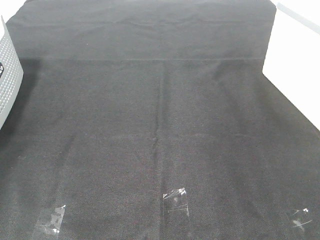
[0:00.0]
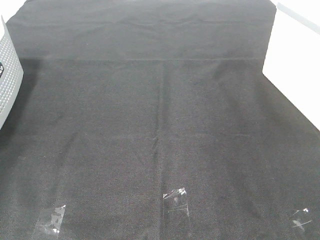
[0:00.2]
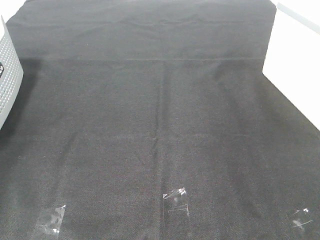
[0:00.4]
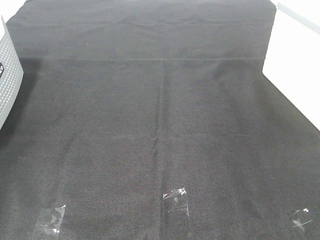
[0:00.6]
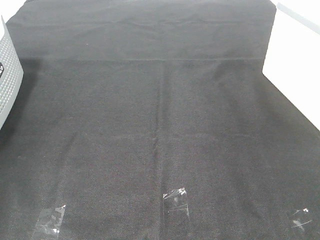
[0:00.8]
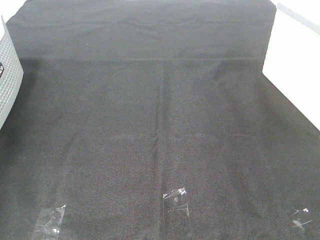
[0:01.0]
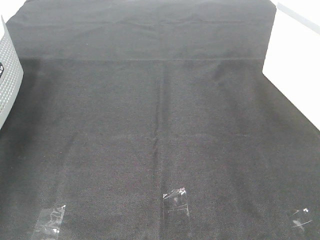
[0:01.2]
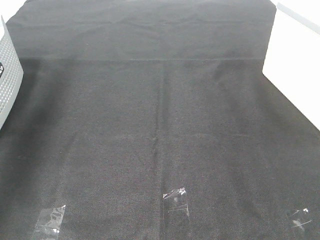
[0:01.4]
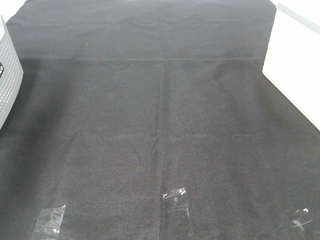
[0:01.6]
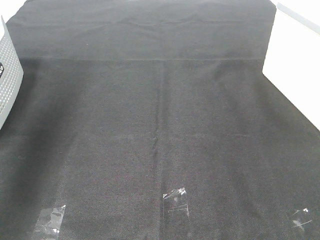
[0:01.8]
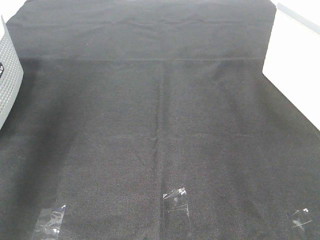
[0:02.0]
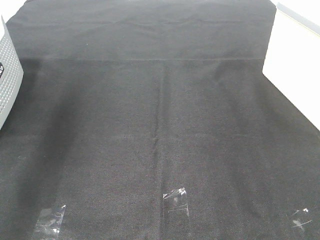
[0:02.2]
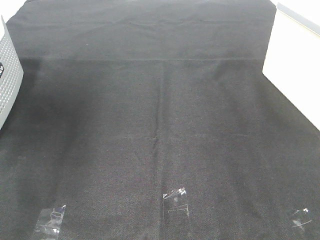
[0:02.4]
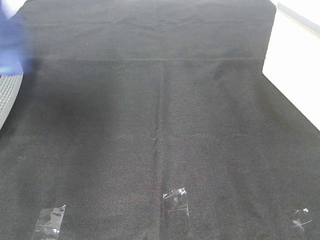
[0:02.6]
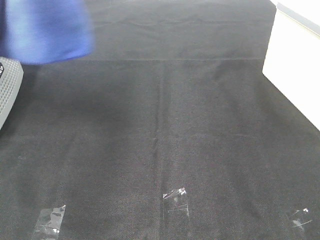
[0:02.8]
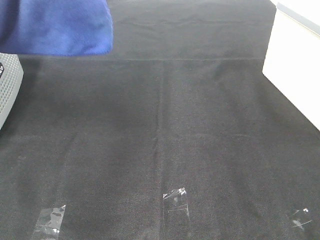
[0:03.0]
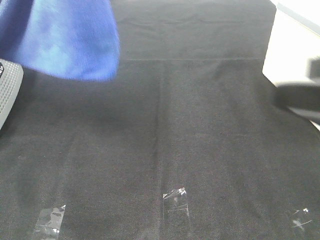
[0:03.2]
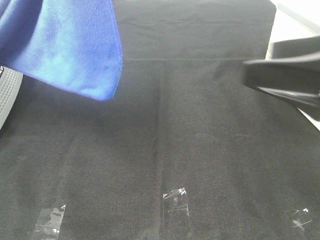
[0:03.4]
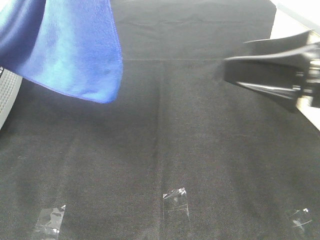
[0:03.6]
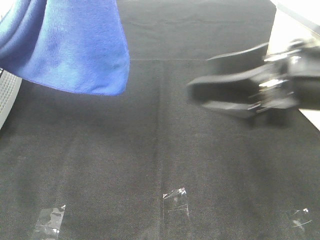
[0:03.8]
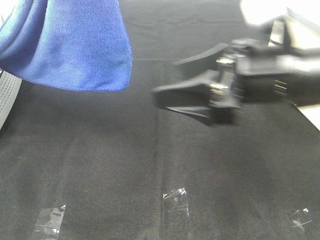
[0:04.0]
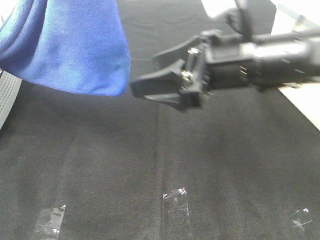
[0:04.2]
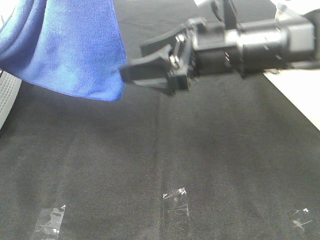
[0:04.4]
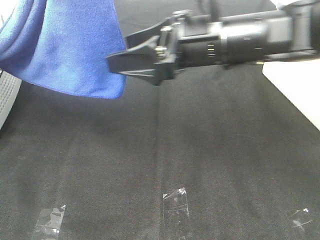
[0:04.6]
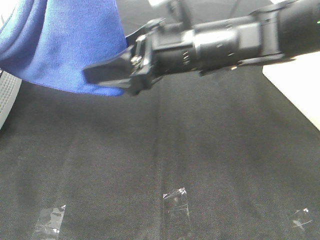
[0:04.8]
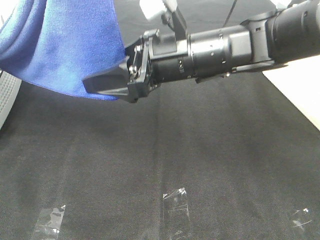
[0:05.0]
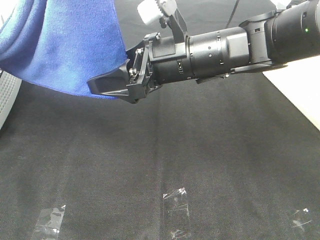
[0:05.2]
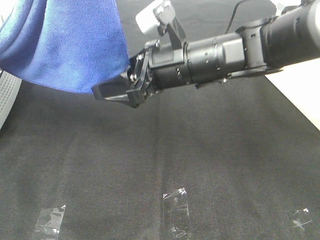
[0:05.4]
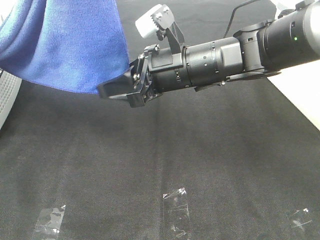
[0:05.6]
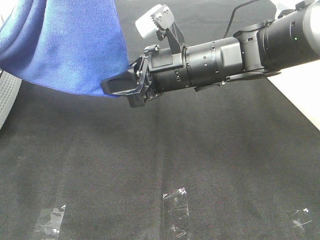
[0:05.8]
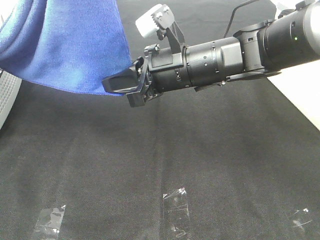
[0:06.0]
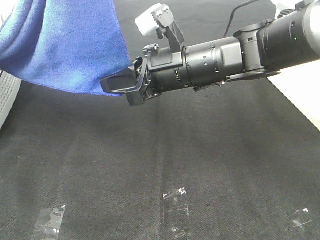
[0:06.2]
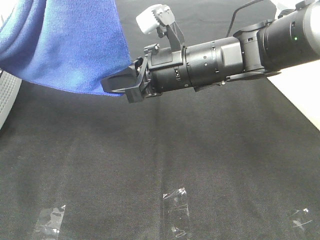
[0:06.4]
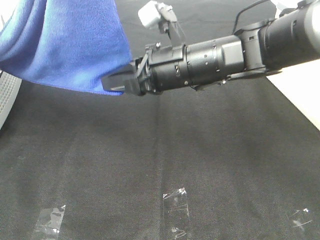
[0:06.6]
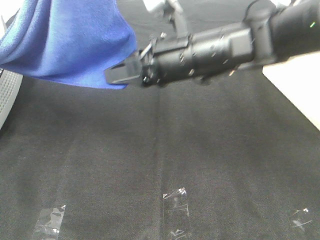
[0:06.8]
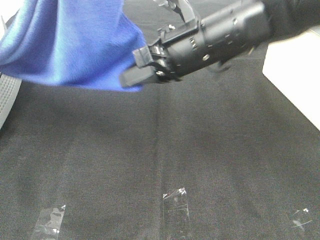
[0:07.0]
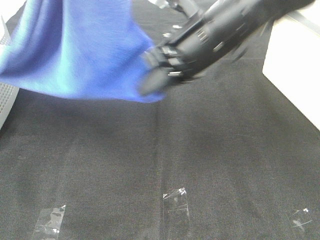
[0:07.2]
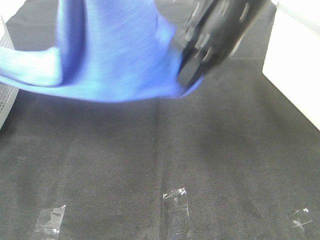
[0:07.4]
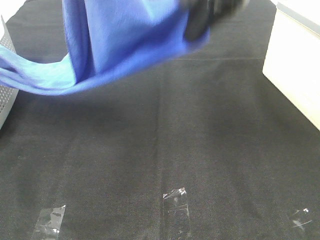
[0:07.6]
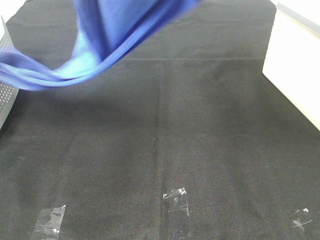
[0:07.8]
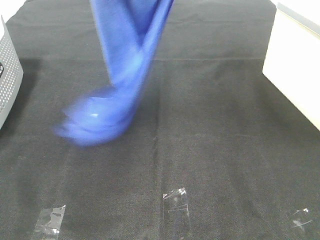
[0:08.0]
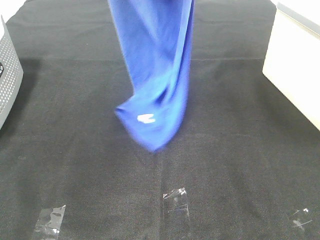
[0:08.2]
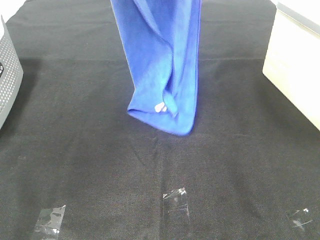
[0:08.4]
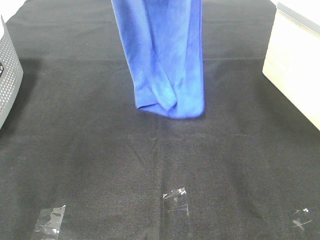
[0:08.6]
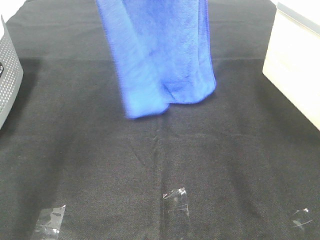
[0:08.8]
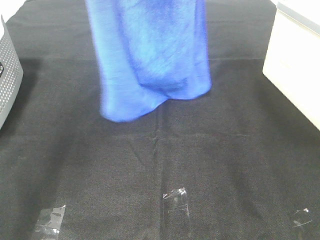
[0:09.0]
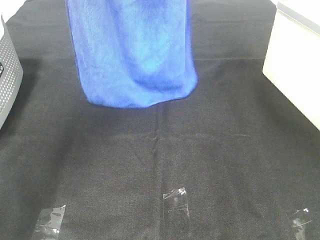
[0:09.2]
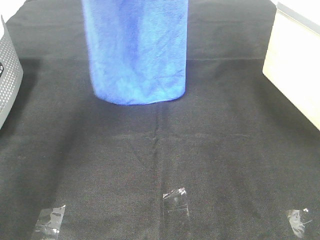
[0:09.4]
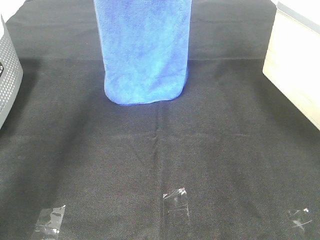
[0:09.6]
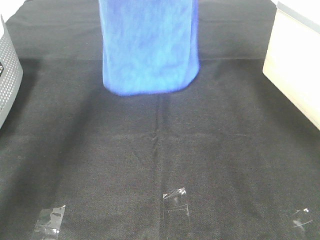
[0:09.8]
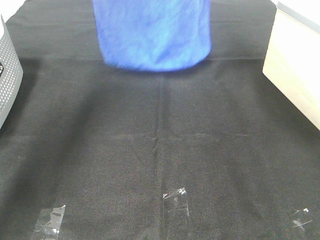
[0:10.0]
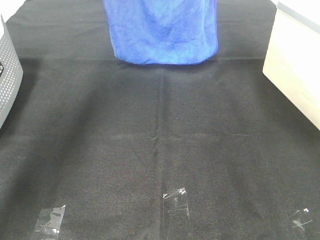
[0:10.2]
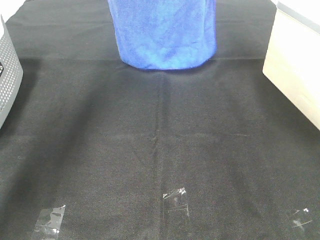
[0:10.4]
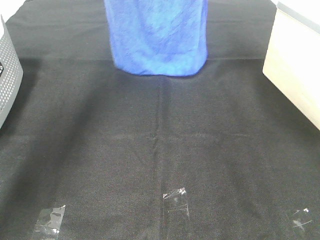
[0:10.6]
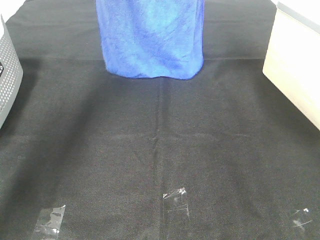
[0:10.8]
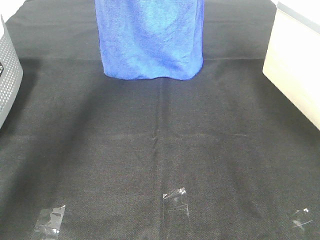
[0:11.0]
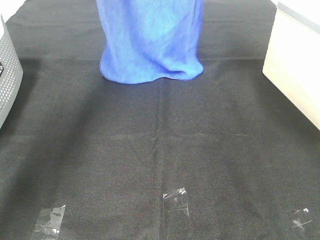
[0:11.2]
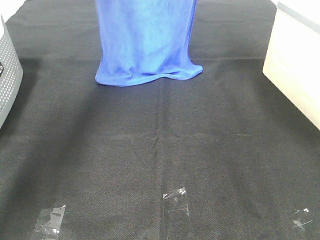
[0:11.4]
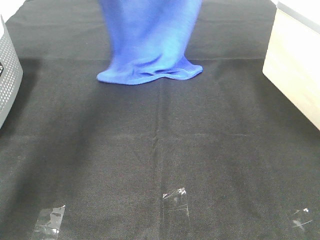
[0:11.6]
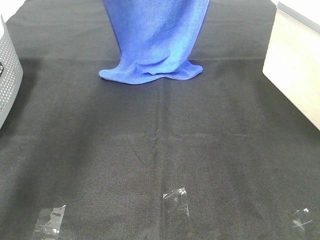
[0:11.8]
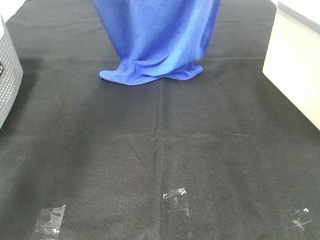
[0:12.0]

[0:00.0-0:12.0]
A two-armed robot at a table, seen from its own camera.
Task of the whole recording: Remove the towel and place it.
Step, 0:02.2 to 0:06.2: Right hand: grab a corner of the blue towel and straighten it.
0:00.0 to 0:01.6: The left gripper goes roughly 30 cm upward and to the right.
0:01.6 to 0:03.0: The left gripper moves to the right and backward, approximately 20 cm. The right gripper travels forward by roughly 10 cm.
0:03.0 to 0:04.4: The right gripper goes about 25 cm forward and to the left.
0:04.4 to 0:06.0: The right gripper moves roughly 5 cm, and closes.
0:06.0 to 0:07.6: The right gripper travels upward by roughly 20 cm.
0:07.6 to 0:09.0: The left gripper travels forward by approximately 15 cm; the right gripper heads upward and forward, covering roughly 15 cm.
0:09.0 to 0:10.4: Both grippers move forward, roughly 10 cm.
0:10.4 to 0:12.0: The two grippers go approximately 10 cm backward.

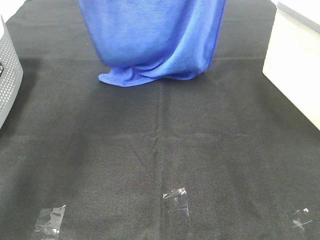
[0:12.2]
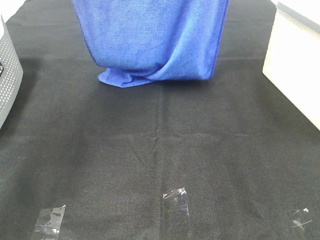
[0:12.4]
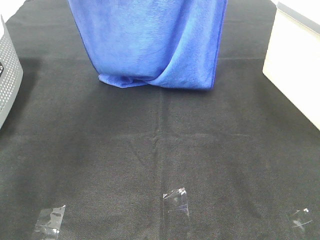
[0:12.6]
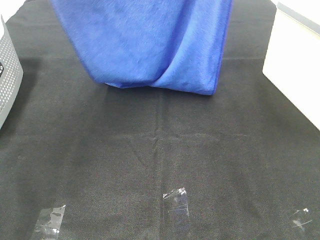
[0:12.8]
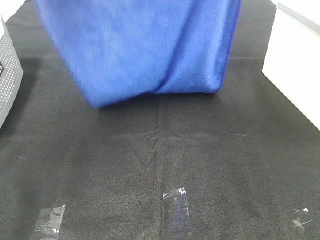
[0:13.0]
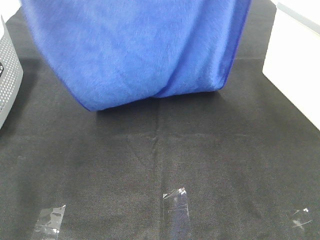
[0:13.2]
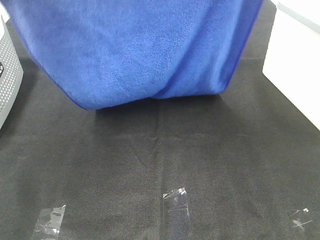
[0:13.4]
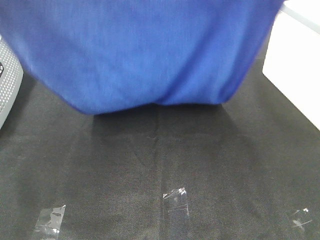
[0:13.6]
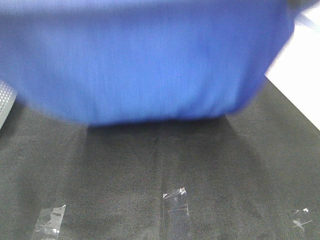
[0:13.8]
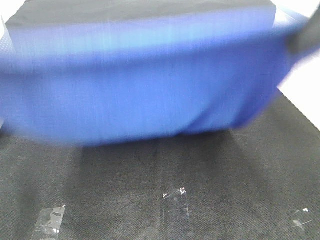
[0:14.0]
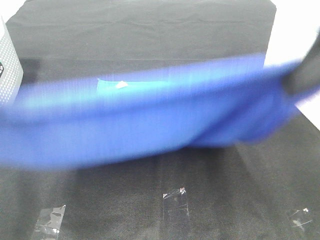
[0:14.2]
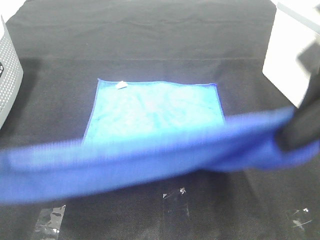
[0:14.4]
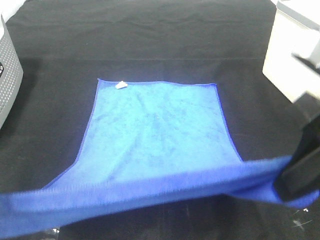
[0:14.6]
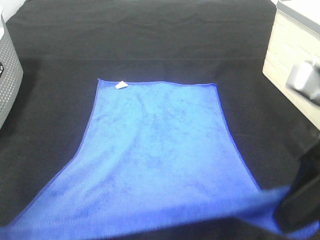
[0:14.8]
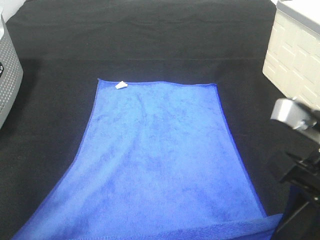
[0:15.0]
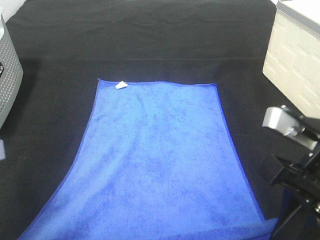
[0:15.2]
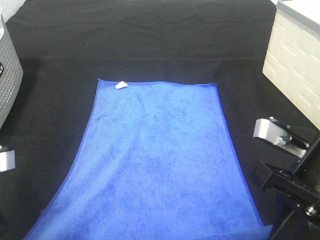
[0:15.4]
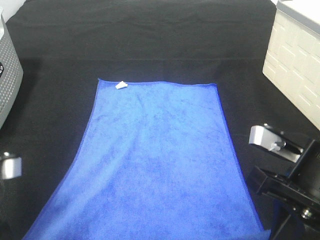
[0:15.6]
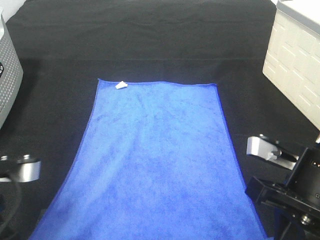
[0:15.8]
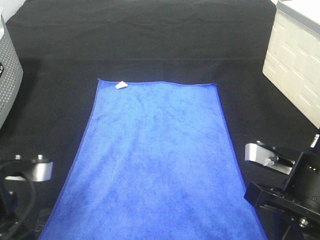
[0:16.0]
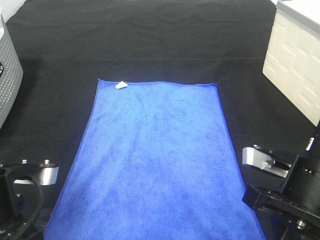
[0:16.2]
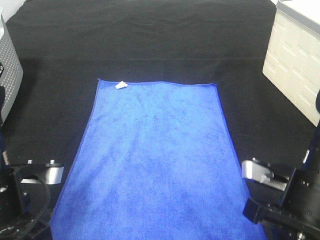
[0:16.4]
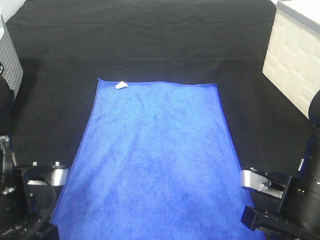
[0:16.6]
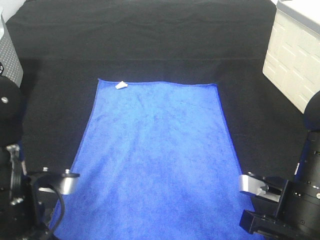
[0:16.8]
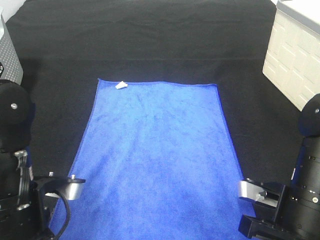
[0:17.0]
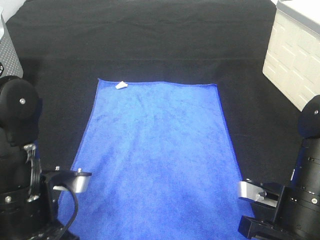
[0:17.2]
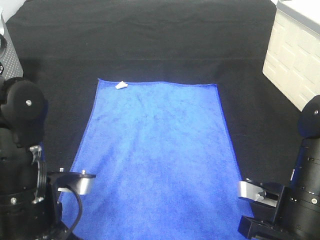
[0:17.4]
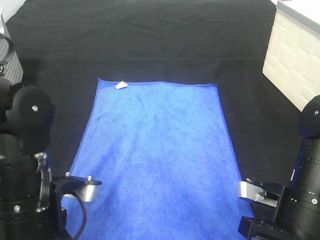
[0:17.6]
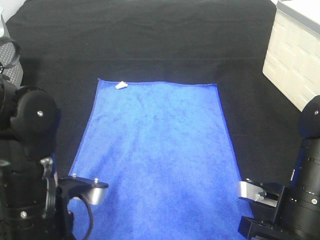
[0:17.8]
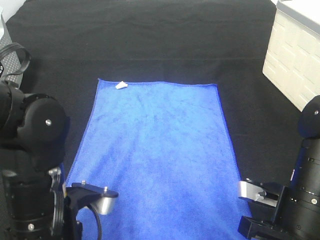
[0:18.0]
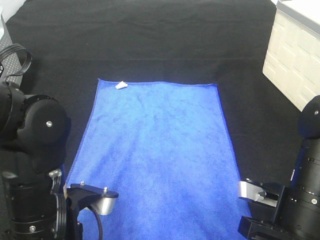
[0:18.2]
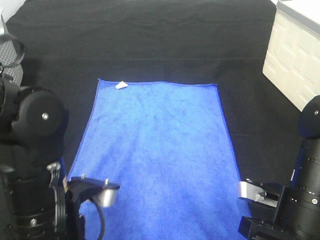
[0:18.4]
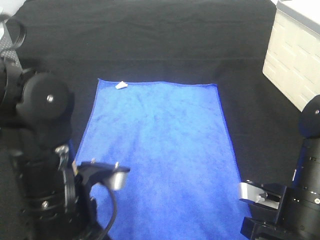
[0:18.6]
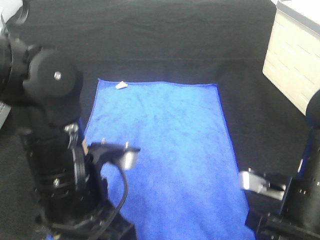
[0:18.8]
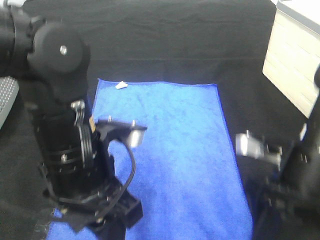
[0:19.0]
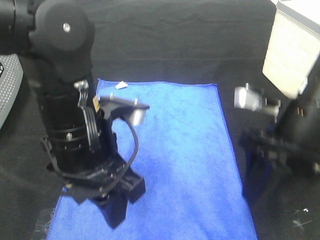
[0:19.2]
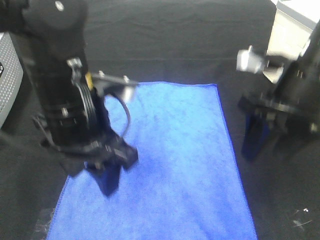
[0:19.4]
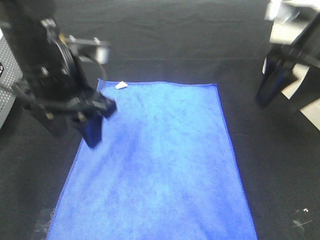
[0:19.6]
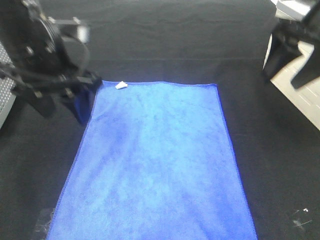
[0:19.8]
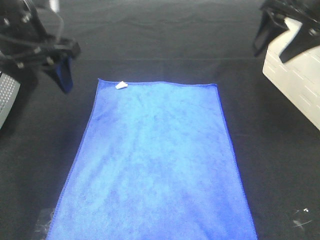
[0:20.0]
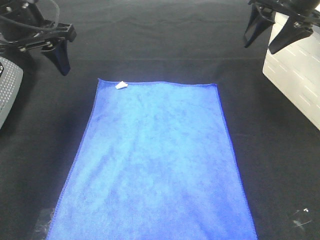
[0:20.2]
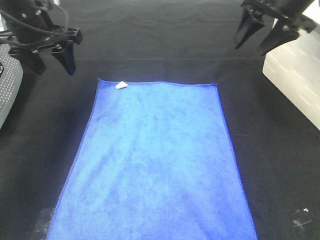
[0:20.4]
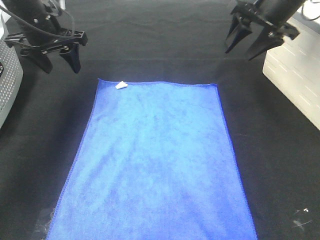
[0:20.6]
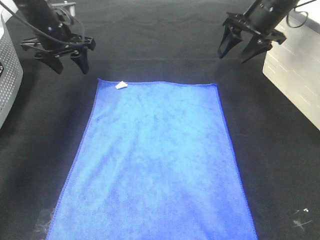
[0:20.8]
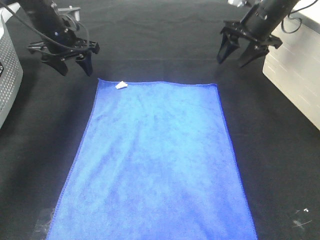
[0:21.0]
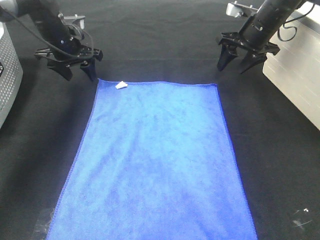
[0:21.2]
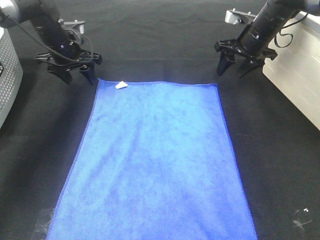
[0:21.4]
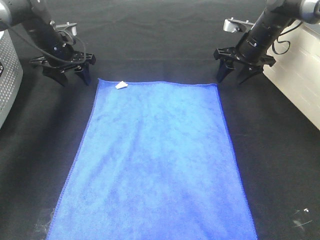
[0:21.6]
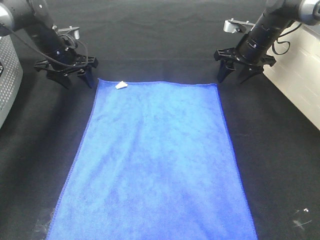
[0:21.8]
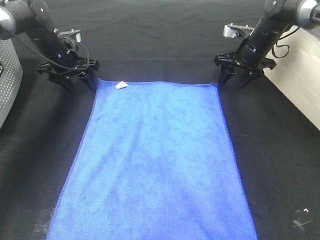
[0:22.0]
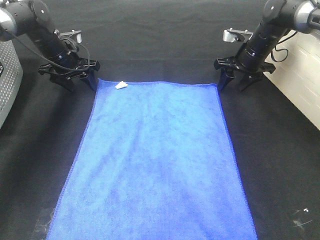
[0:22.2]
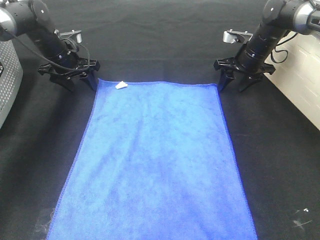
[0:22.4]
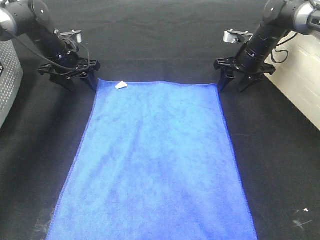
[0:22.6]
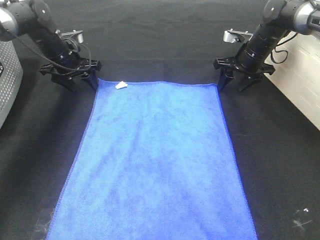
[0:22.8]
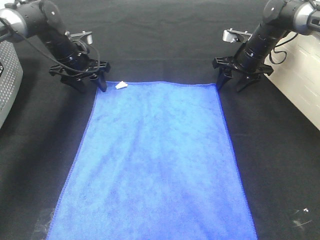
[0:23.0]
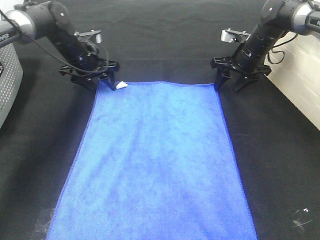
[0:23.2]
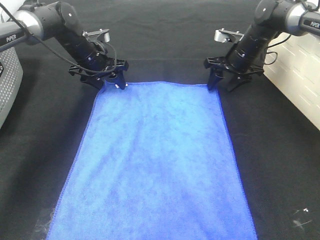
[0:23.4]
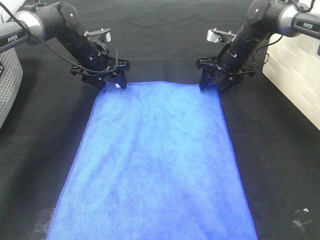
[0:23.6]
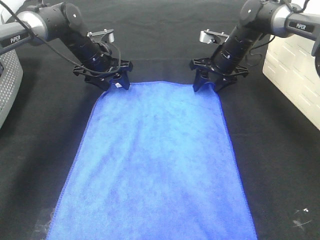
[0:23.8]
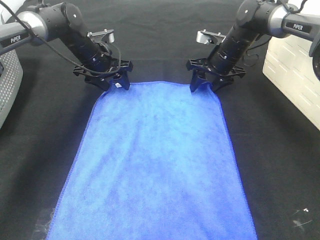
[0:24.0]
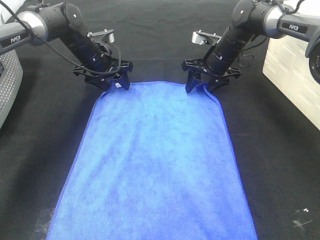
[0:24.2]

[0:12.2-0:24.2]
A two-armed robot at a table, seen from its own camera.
Task of the whole recording: Remove the towel and place it.
0:12.2 to 0:13.8: Both grippers travel together backward, about 20 cm.
0:13.8 to 0:15.2: The grippers both shift downward by about 20 cm.
0:15.2 to 0:16.6: The left gripper is displaced downward by about 5 cm; the right gripper moves downward, some 10 cm.
0:16.6 to 0:18.2: The left gripper is displaced to the right by roughly 5 cm, and opens up. Meanwhile the right gripper opens.
0:18.2 to 0:19.8: The left gripper is displaced forward and upward by some 20 cm; the right gripper moves upward and forward, approximately 25 cm.
0:19.8 to 0:21.2: Both grippers travel together forward and downward, some 25 cm.
0:21.2 to 0:22.6: The right gripper moves downward, approximately 5 cm.
0:22.6 to 0:24.2: The left gripper moves to the right, roughly 10 cm, while the right gripper heads to the left, covering roughly 10 cm.
